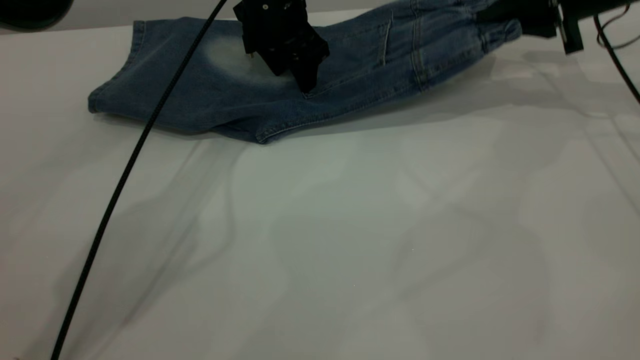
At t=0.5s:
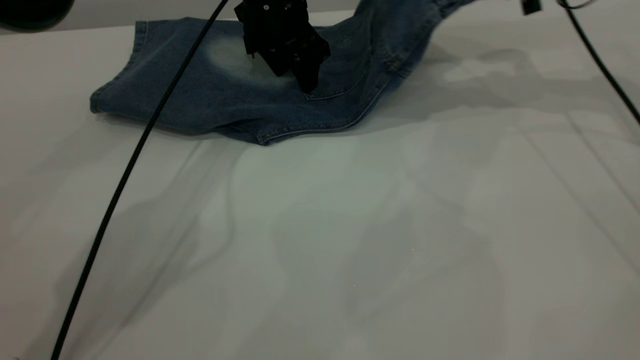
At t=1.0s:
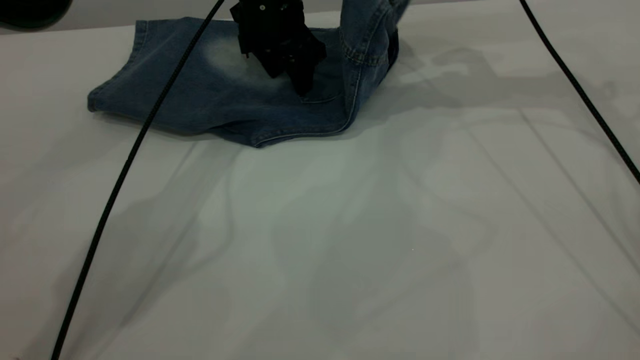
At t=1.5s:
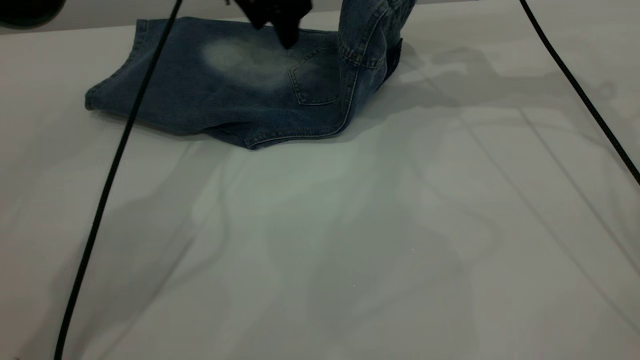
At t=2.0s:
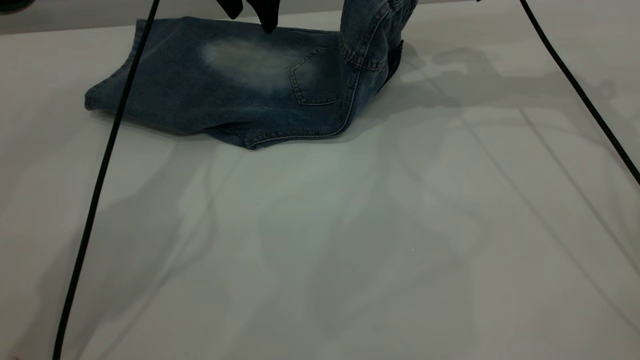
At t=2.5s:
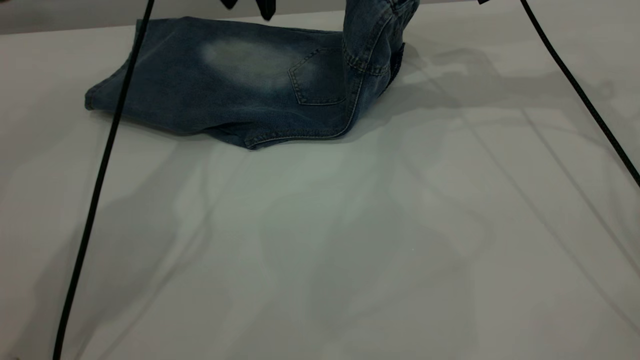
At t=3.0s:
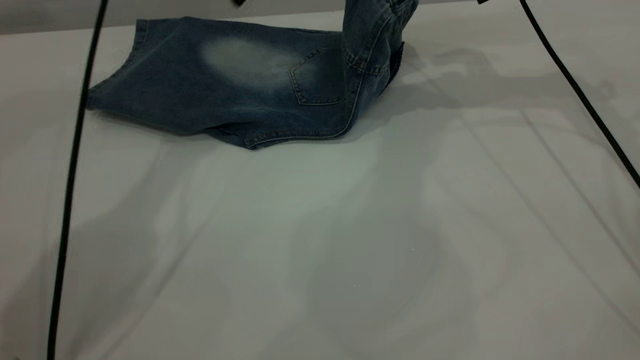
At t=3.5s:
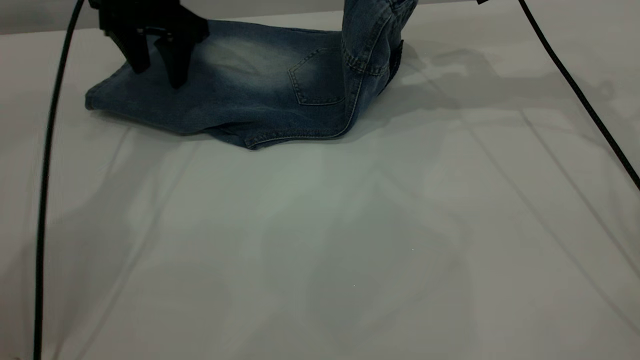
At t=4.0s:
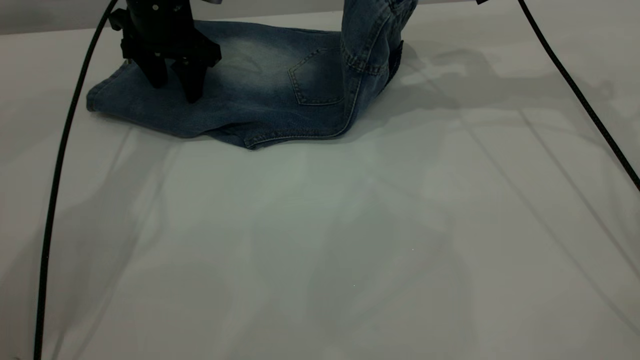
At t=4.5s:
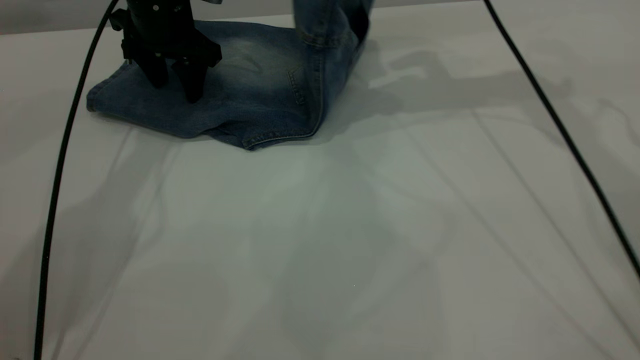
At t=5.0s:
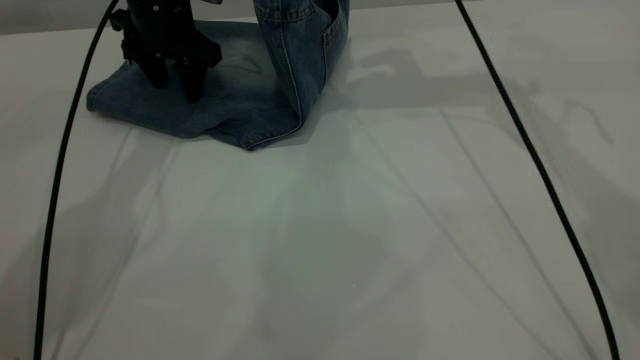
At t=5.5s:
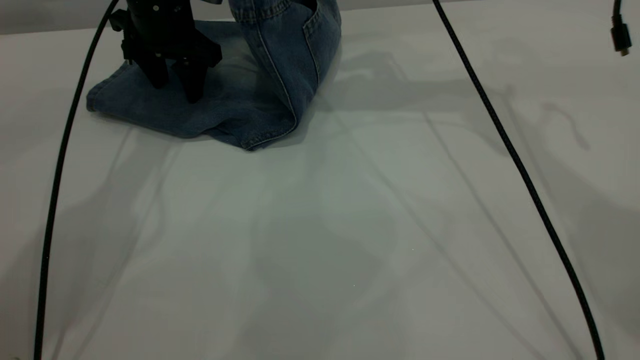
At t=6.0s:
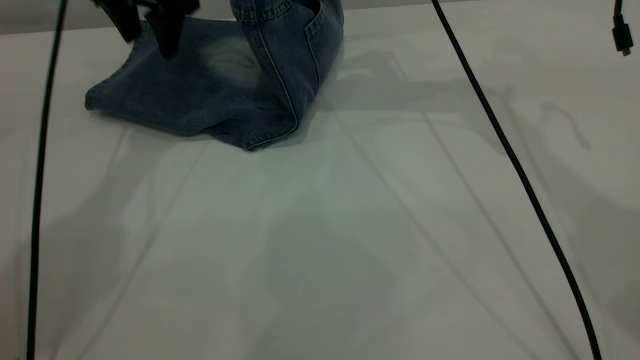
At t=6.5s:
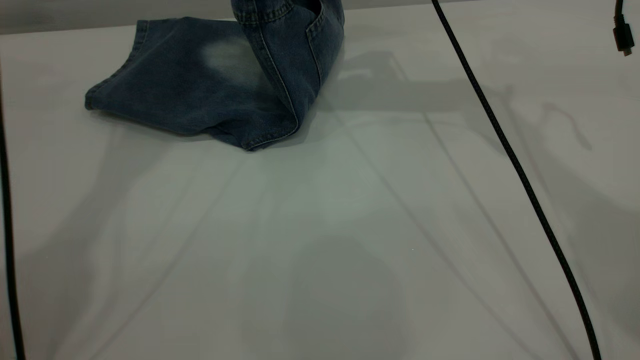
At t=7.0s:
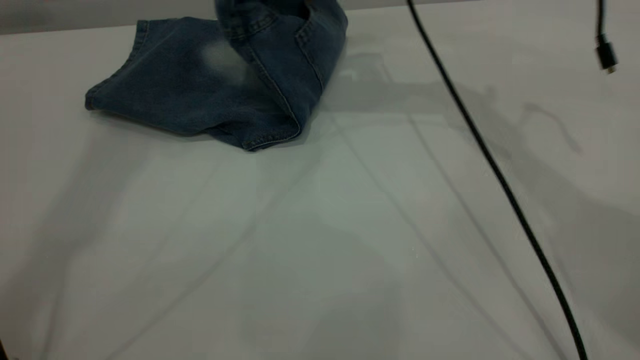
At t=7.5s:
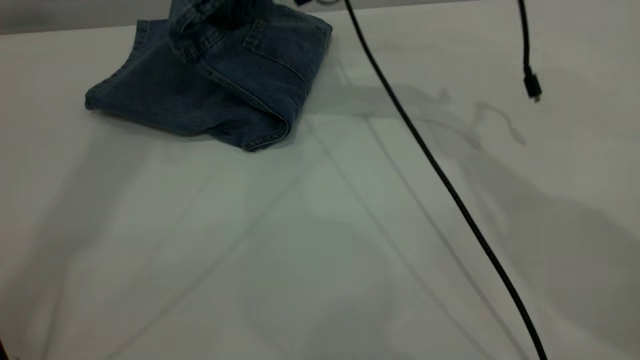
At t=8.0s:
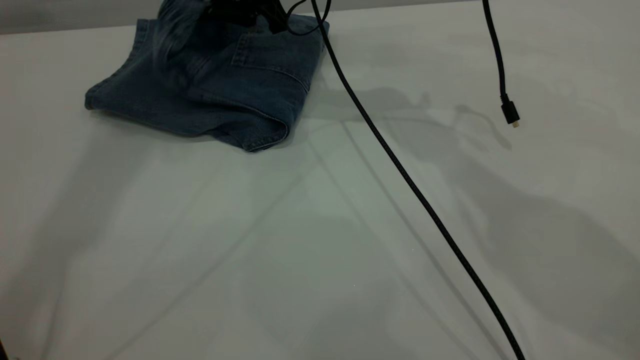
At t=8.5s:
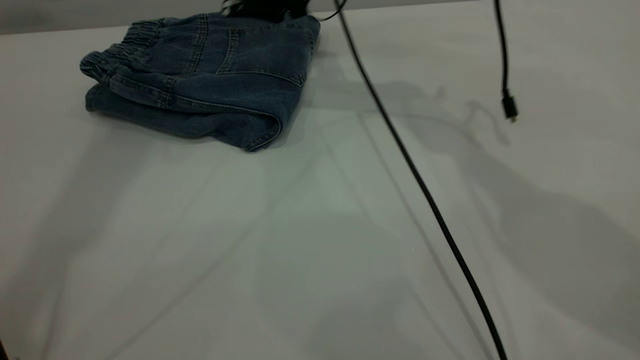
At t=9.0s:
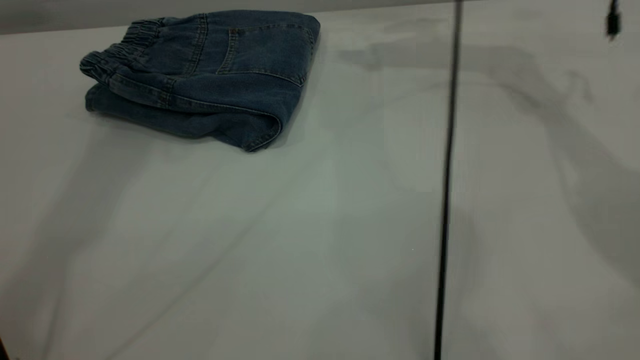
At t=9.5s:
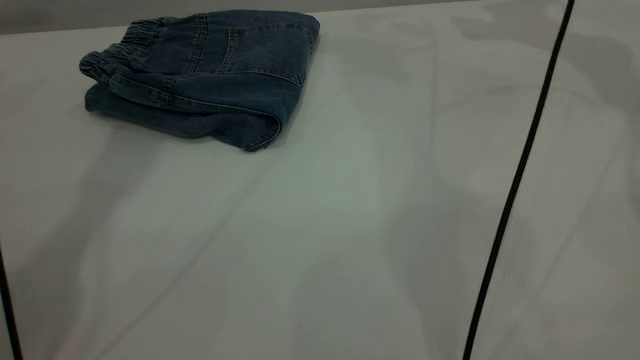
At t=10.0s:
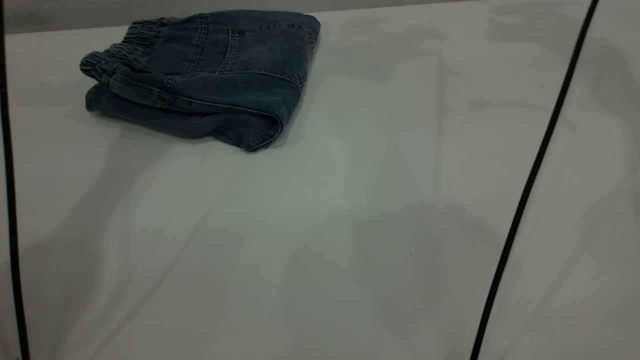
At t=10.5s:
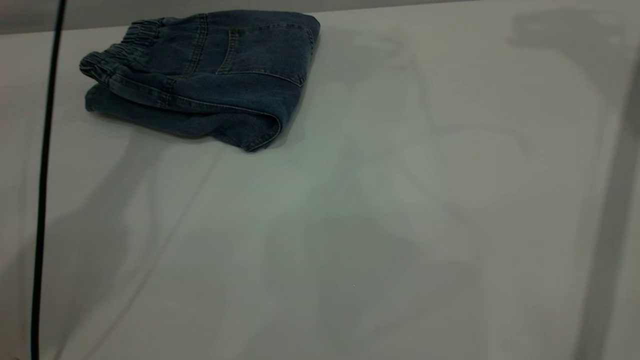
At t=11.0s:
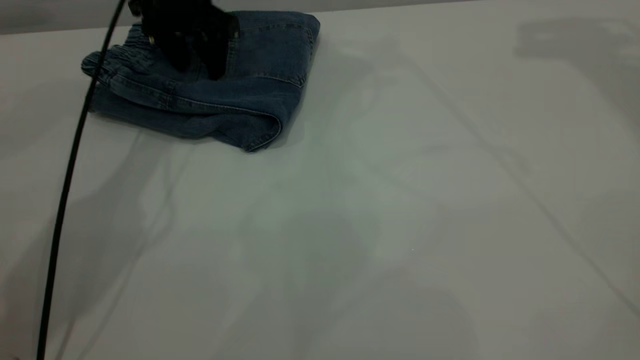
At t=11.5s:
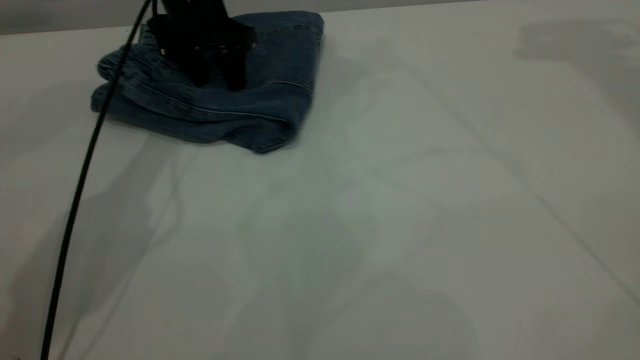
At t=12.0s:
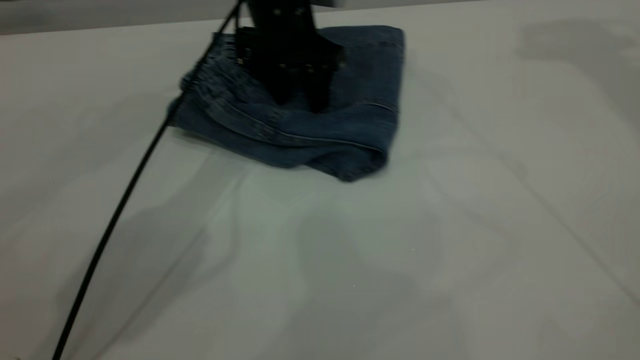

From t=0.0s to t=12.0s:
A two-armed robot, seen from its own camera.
Step, from t=0.0s to t=8.5s: Fold your pants from right to left.
From t=0.0s to t=2.0s: The left gripper goes about 5 cm upward. Meanwhile the right gripper is displaced to the left and upward by roughly 10 cm.
From t=2.0s to t=4.0s: The left gripper moves to the left and downward, some 10 cm.
From t=4.0s to t=6.0s: The right gripper is displaced to the left and upward by approximately 15 cm, while the left gripper travels upward by some 5 cm.
From t=6.0s to t=8.0s: The right gripper travels to the left and downward by some 10 cm, and opens its fingers, while the left gripper moves upward, approximately 30 cm.
From t=8.0s to t=10.0s: The right gripper travels to the right and upward by roughly 35 cm, and opens. The left gripper is displaced downward and forward by about 20 cm.
From t=10.0s to t=12.0s: The right gripper heads upward and backward, covering approximately 15 cm, while the left gripper is displaced downward and to the right by approximately 25 cm.

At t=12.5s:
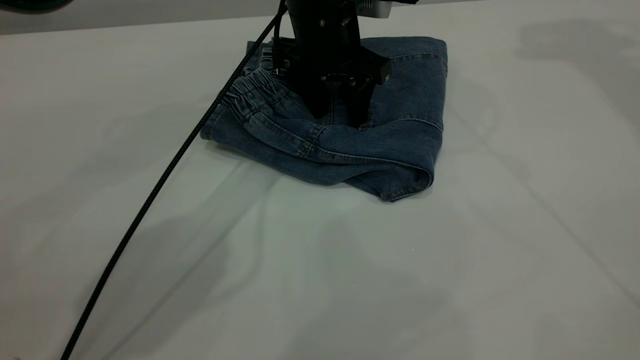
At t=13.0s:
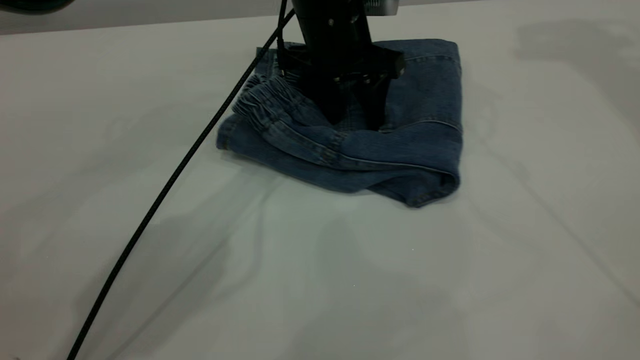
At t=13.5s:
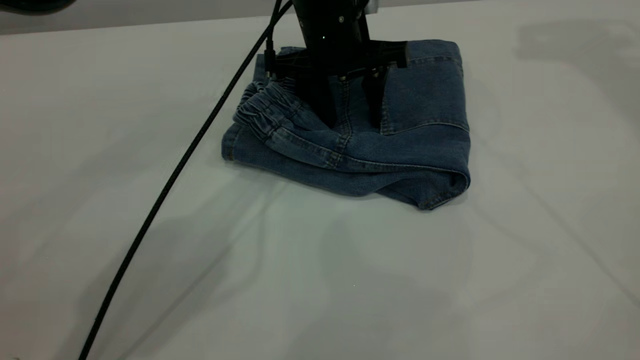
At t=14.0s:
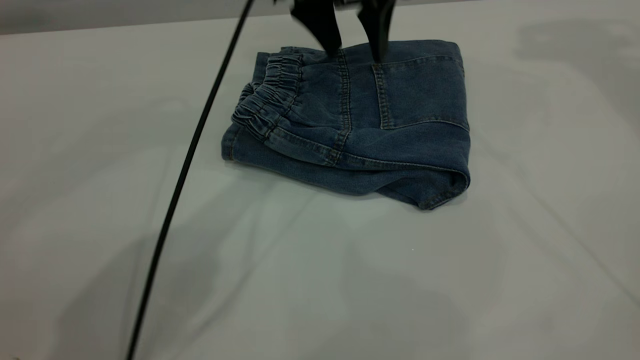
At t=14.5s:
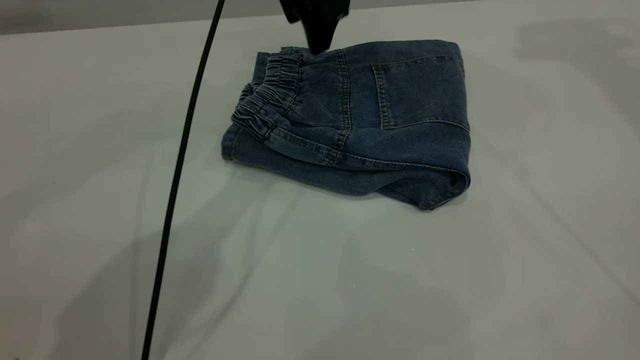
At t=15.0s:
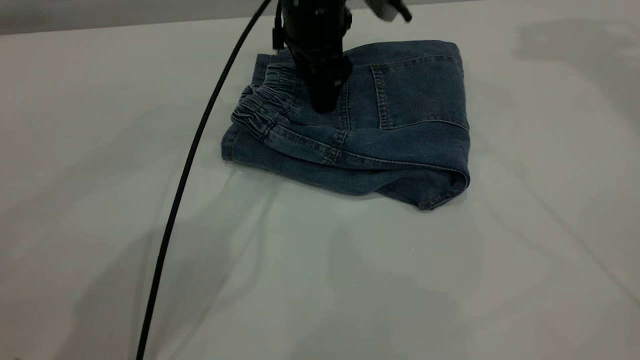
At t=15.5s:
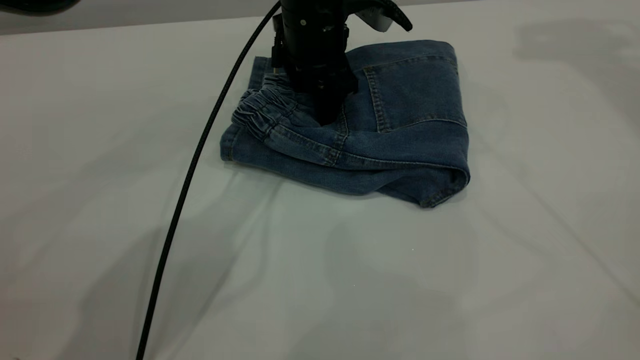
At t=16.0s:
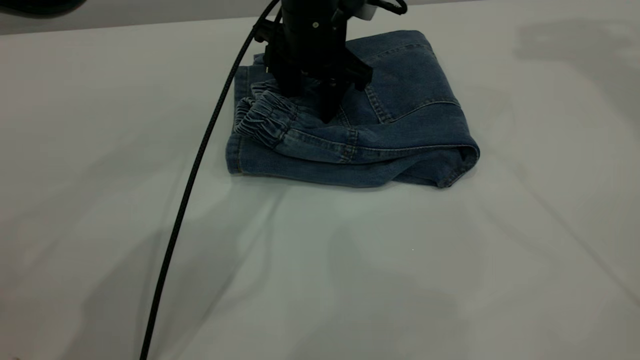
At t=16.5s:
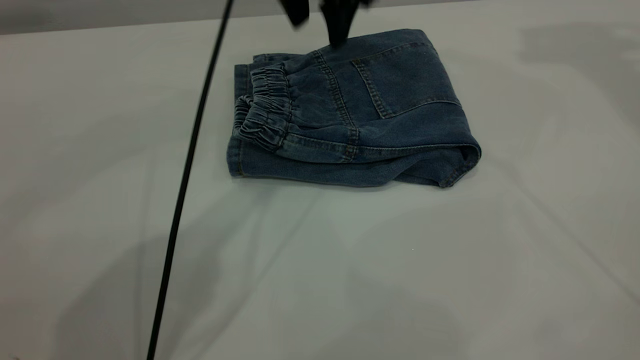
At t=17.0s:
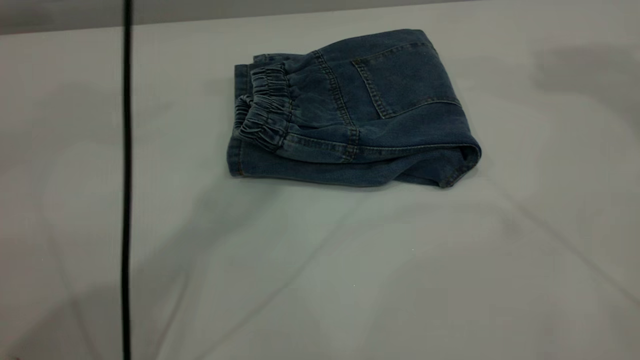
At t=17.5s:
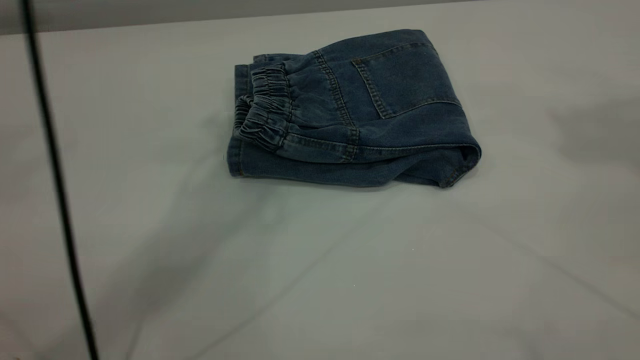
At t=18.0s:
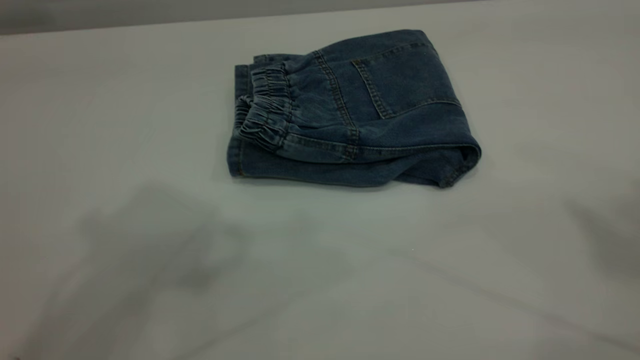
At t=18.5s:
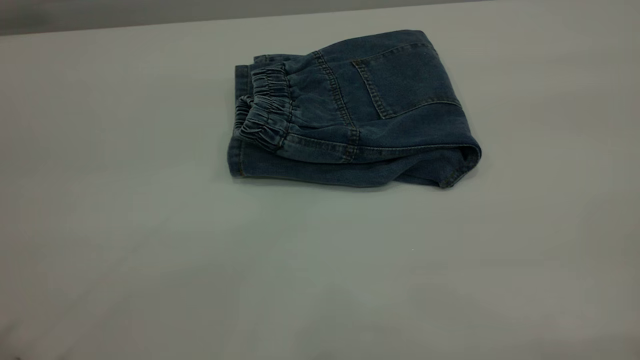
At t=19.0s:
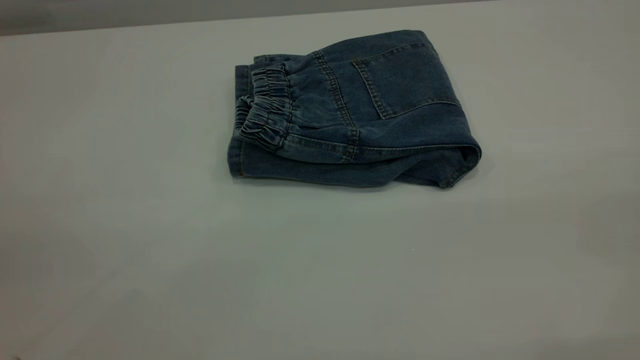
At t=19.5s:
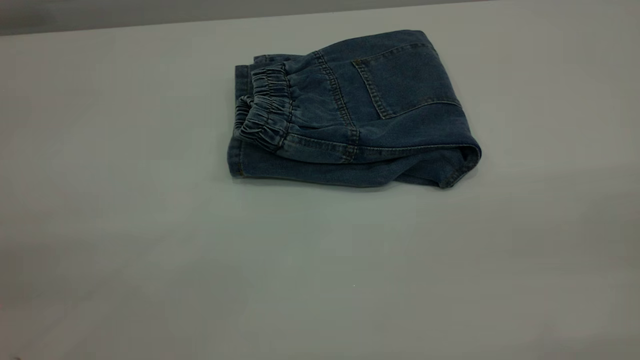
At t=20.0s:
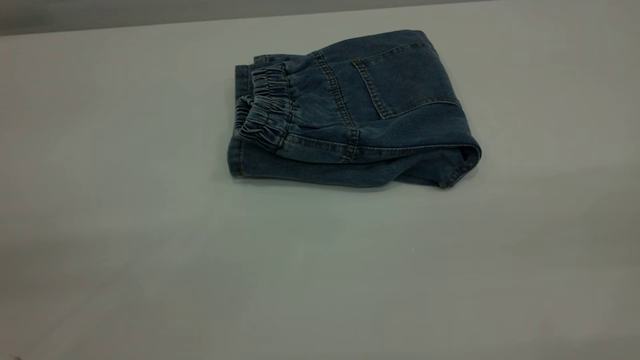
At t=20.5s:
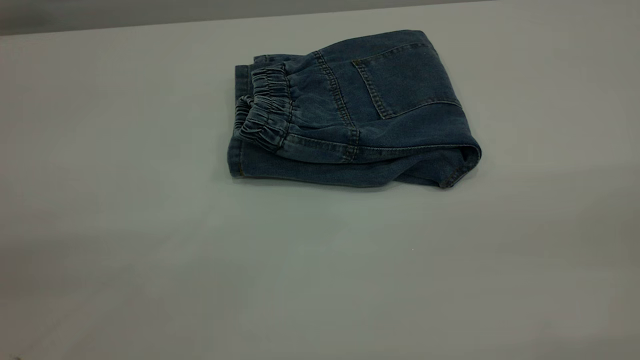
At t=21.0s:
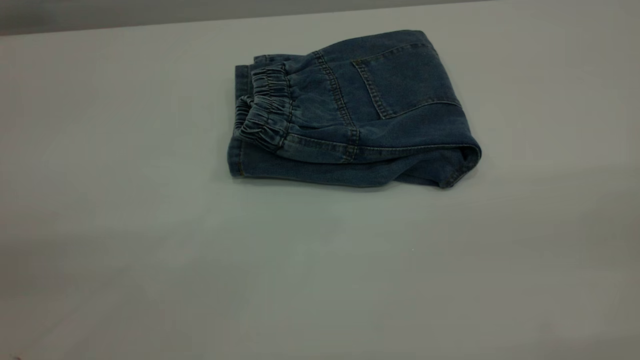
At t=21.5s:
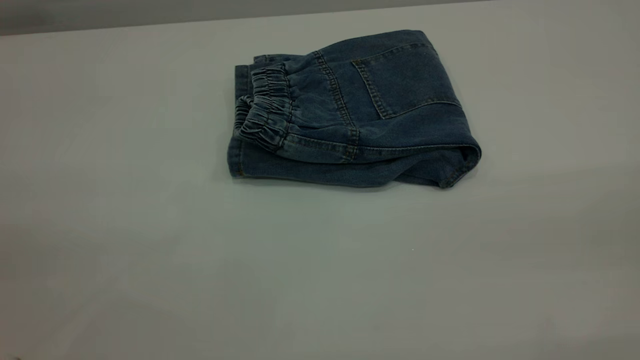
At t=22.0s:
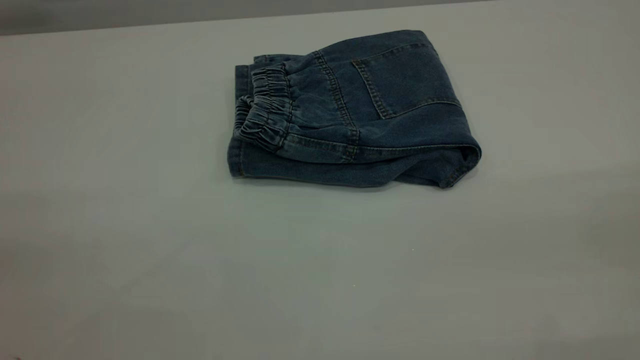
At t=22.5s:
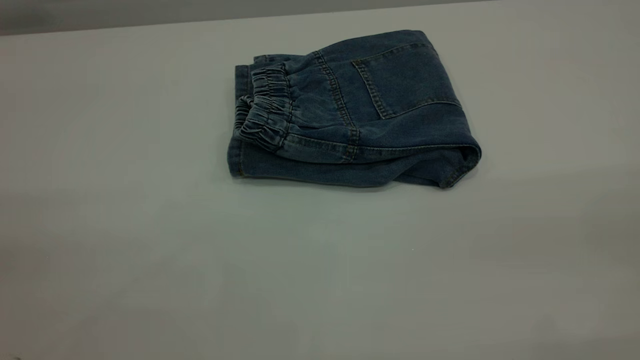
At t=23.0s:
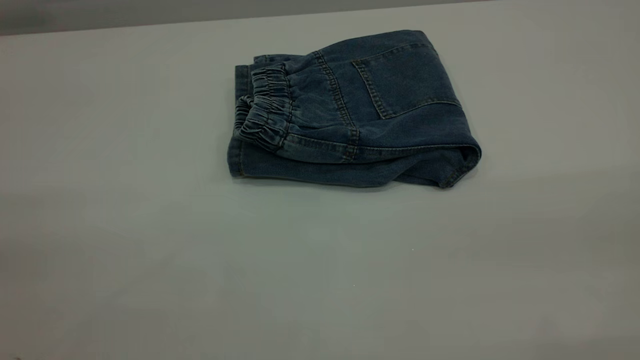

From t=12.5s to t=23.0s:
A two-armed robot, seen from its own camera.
From t=12.5s to t=14.5s: The left gripper moves upward, about 10 cm.
From t=14.5s to t=16.5s: The left gripper travels downward and back again, roughly 10 cm each way.
From t=16.5s to t=19.0s: The left gripper heads backward and to the left, covering about 50 cm. The right gripper shifts about 50 cm backward.
